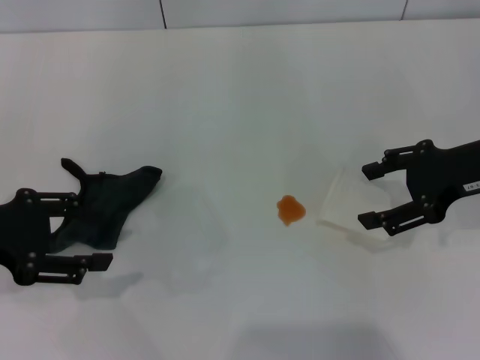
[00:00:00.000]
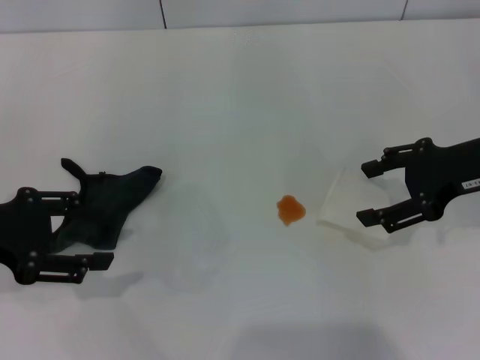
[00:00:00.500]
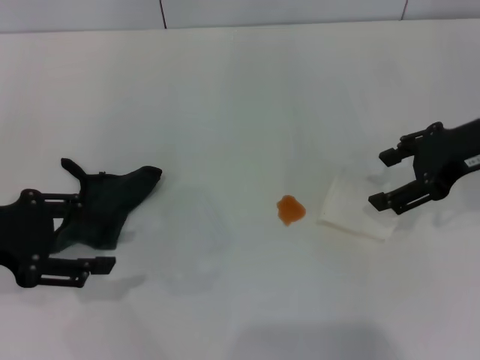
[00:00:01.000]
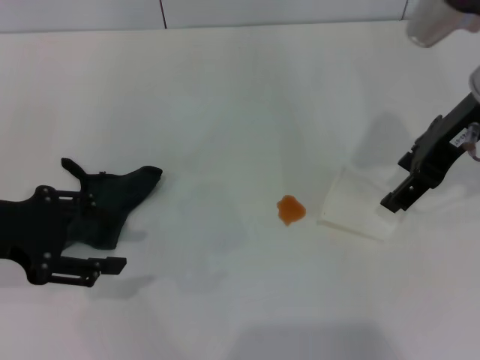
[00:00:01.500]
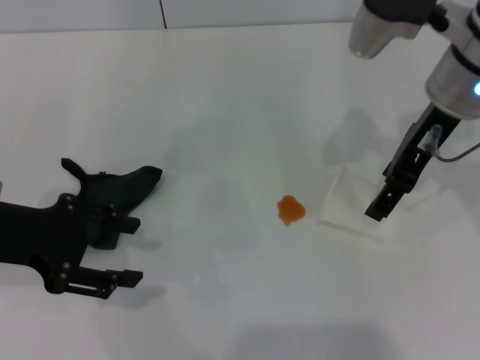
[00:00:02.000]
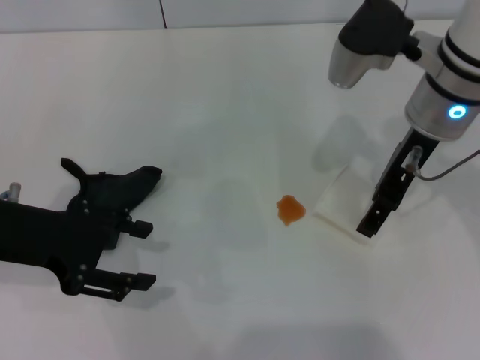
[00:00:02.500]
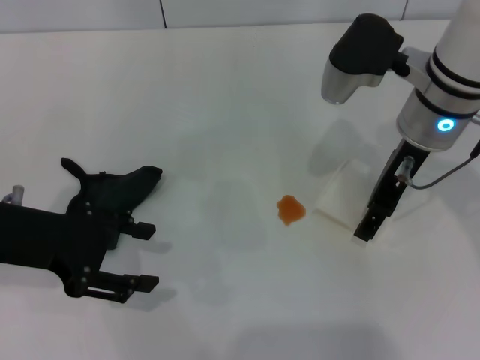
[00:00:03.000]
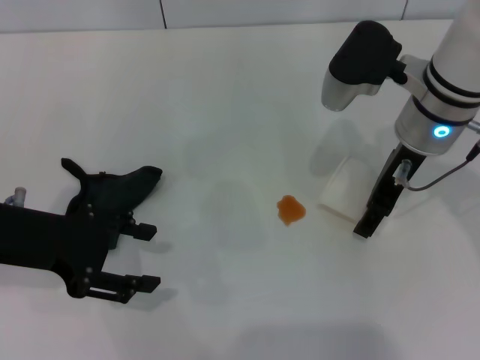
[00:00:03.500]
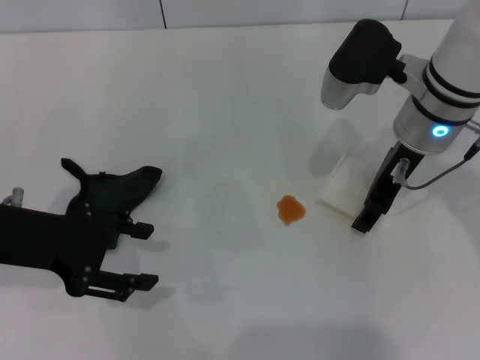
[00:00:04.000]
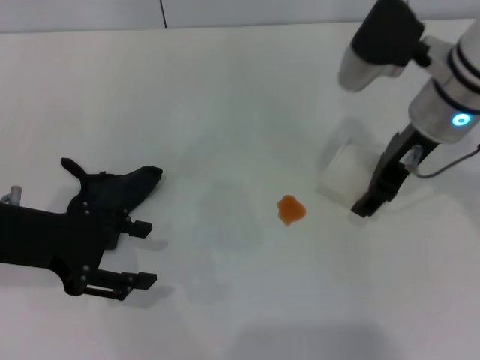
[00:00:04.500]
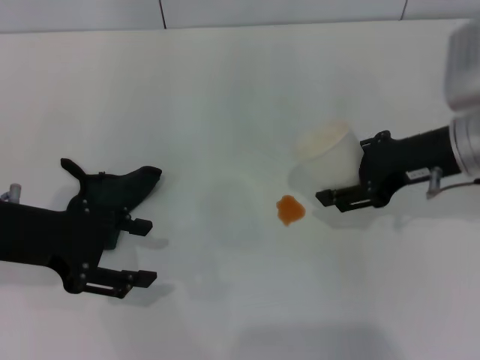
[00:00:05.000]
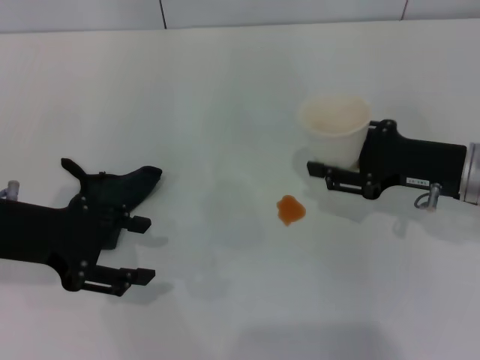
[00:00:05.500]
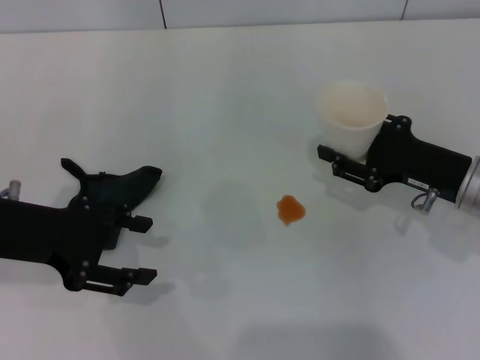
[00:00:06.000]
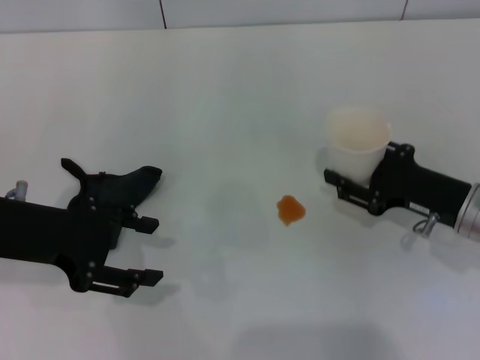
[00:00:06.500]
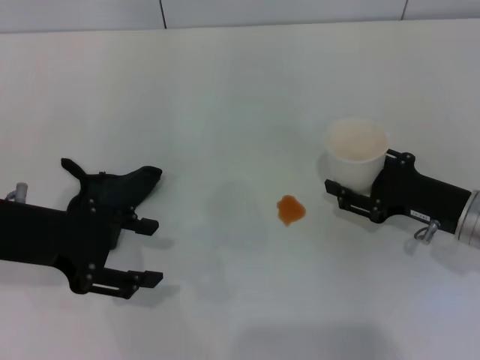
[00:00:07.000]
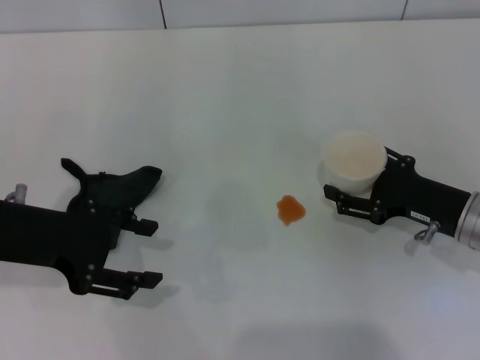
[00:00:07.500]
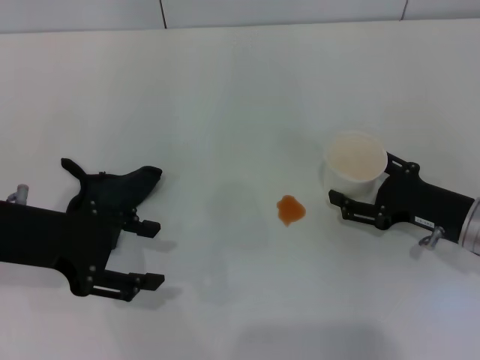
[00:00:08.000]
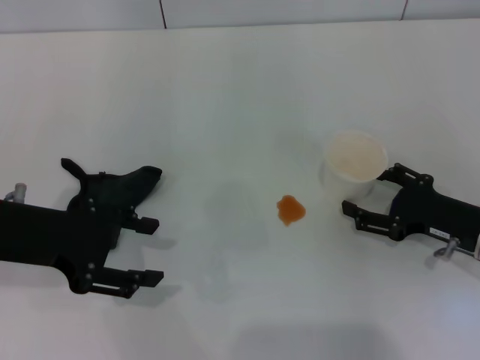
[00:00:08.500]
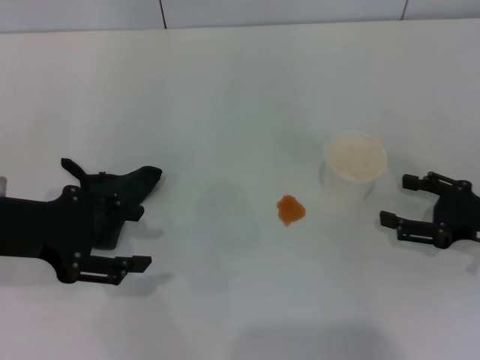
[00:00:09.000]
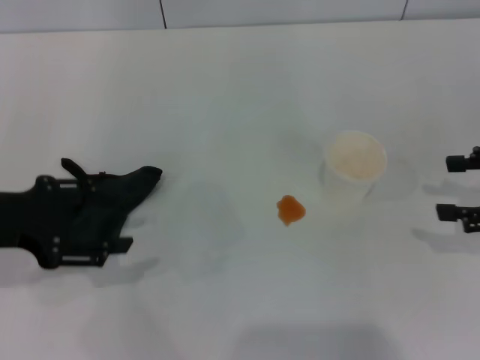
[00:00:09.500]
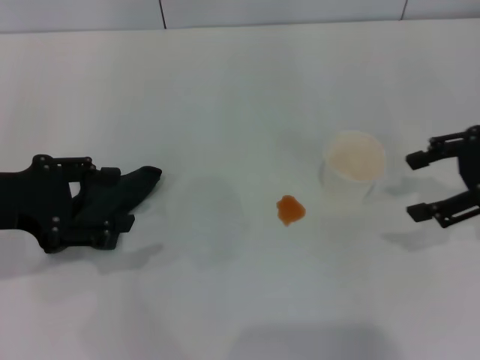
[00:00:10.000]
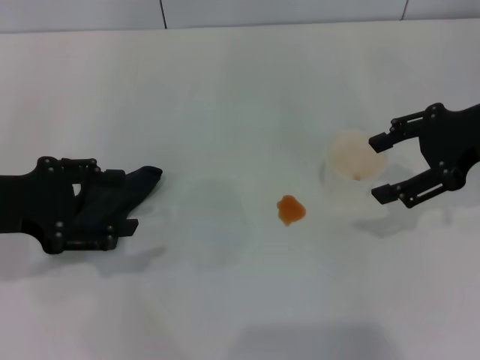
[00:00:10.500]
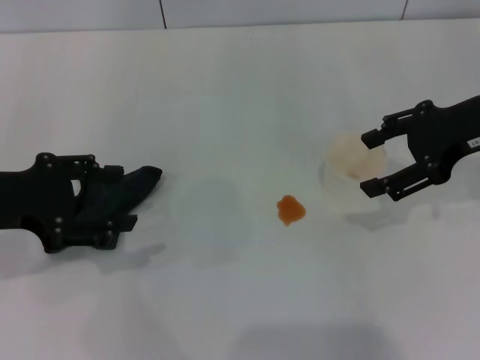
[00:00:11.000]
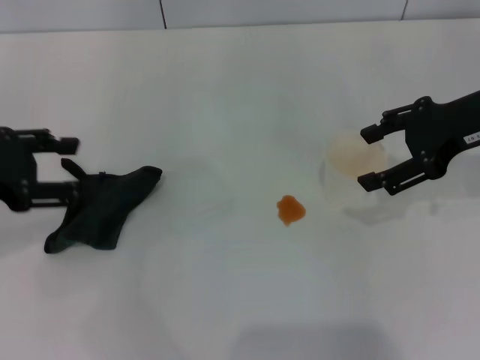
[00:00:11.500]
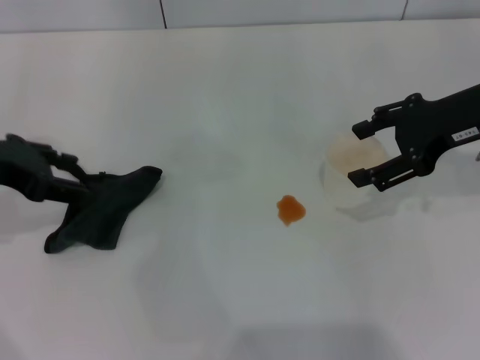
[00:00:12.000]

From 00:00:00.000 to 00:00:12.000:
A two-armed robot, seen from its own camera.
Step, from 00:00:00.000 to 00:00:04.000: Grasp the paper cup with the right gripper.
Step, from 00:00:04.500 to 00:00:08.500: Stand the paper cup upright with the right gripper.
From 00:00:00.000 to 00:00:02.000: The right gripper shifts some 15 cm to the left, upward and forward.
From 00:00:02.000 to 00:00:04.000: The right gripper moves downward, roughly 5 cm, and closes its fingers.
From 00:00:04.000 to 00:00:06.000: The right gripper heads to the right, downward and backward, covering approximately 15 cm, and closes.
From 00:00:06.000 to 00:00:08.000: The right gripper opens its fingers.
From 00:00:08.000 to 00:00:10.000: The right gripper shifts approximately 15 cm upward.
From 00:00:10.000 to 00:00:12.000: The right gripper shifts about 5 cm to the left. The left gripper ends up some 5 cm from where it was.

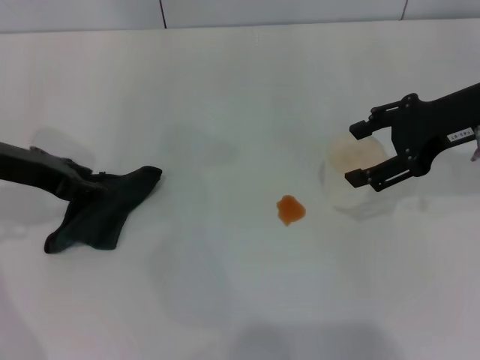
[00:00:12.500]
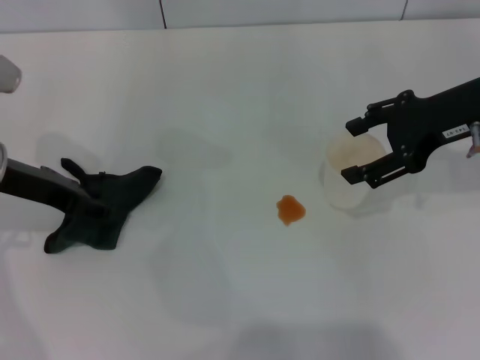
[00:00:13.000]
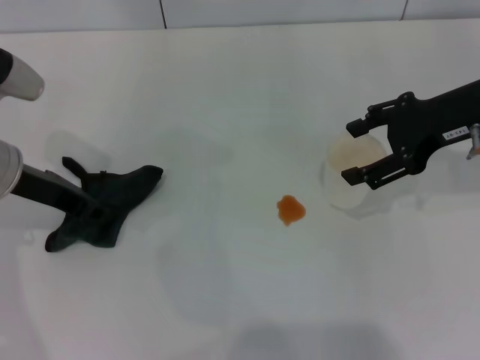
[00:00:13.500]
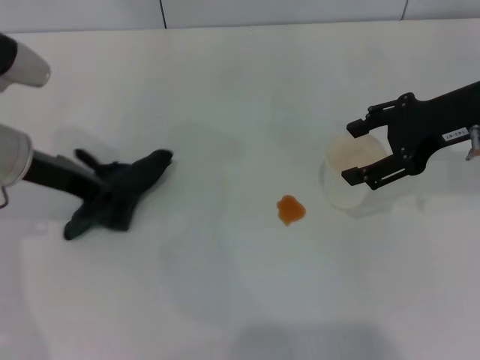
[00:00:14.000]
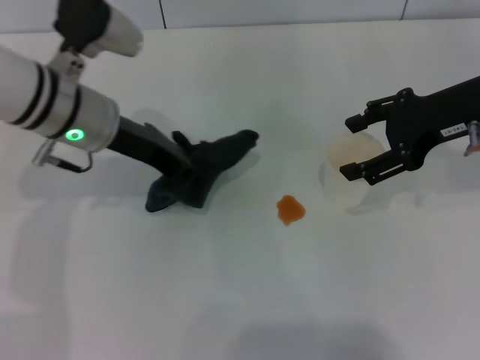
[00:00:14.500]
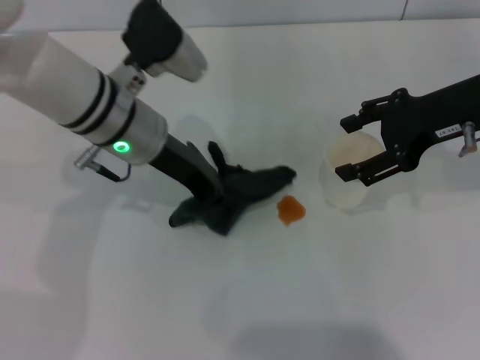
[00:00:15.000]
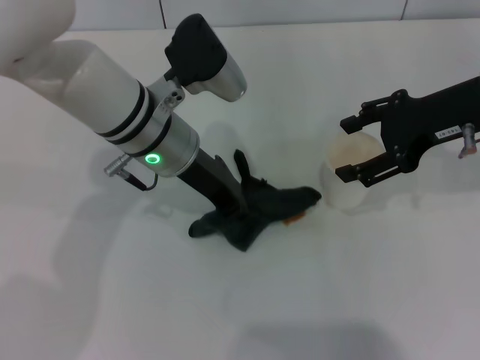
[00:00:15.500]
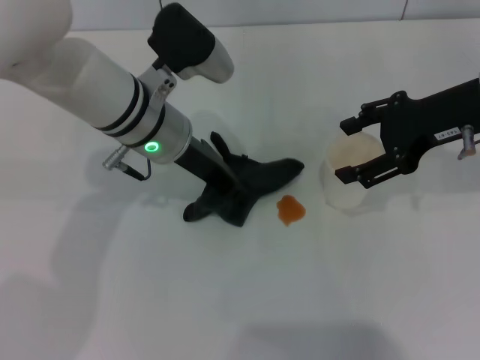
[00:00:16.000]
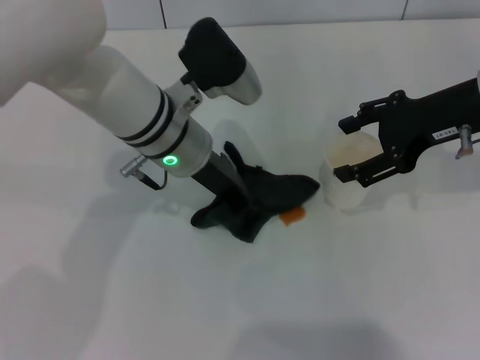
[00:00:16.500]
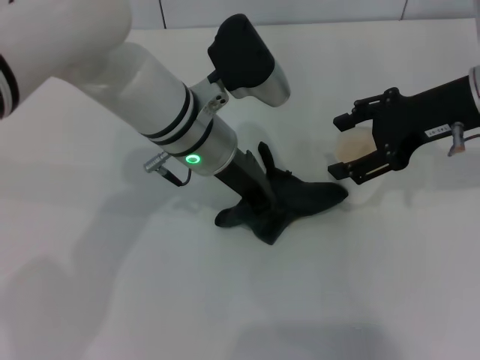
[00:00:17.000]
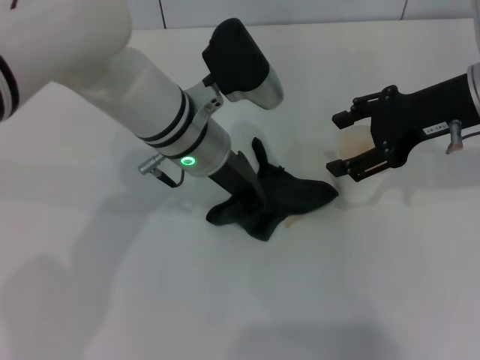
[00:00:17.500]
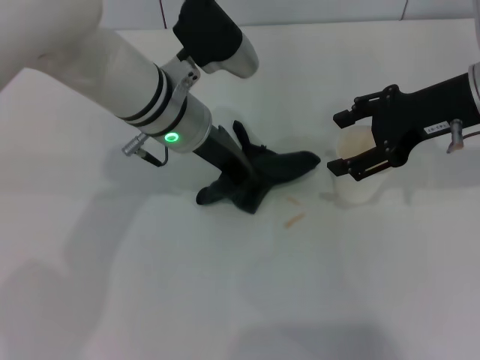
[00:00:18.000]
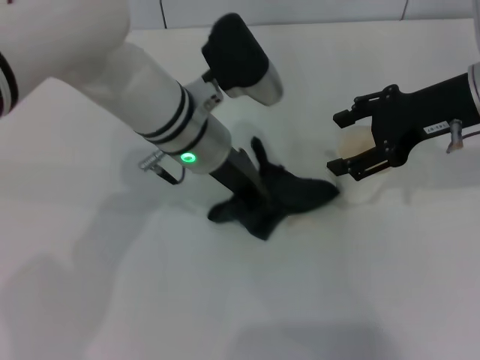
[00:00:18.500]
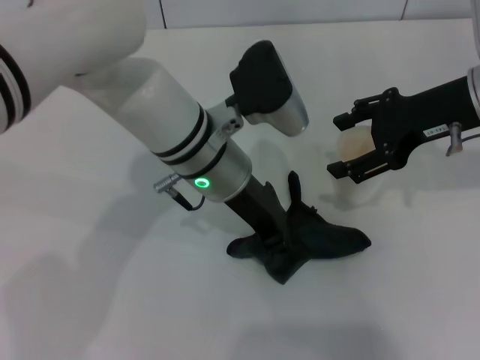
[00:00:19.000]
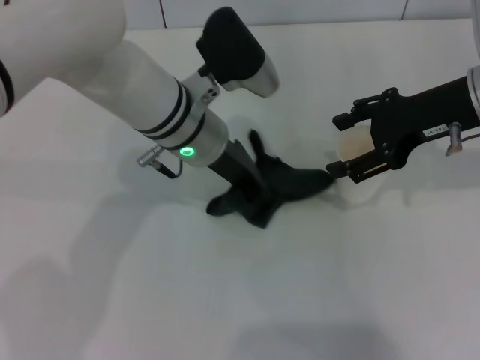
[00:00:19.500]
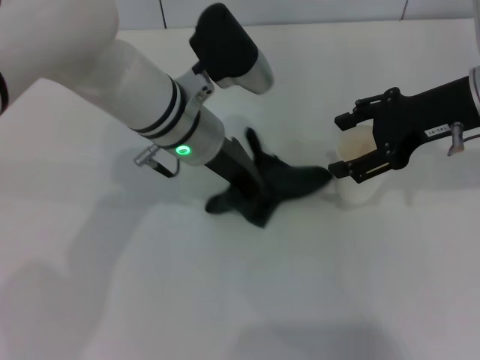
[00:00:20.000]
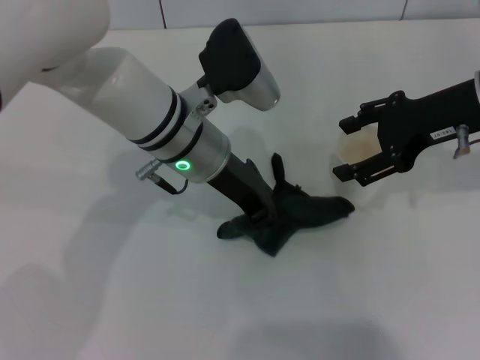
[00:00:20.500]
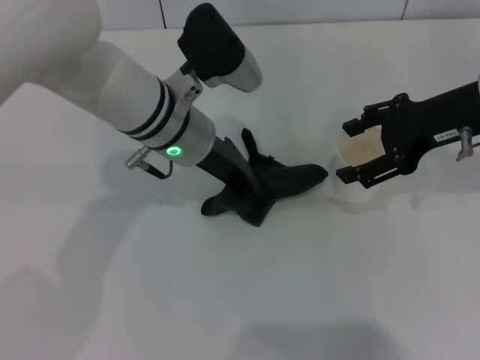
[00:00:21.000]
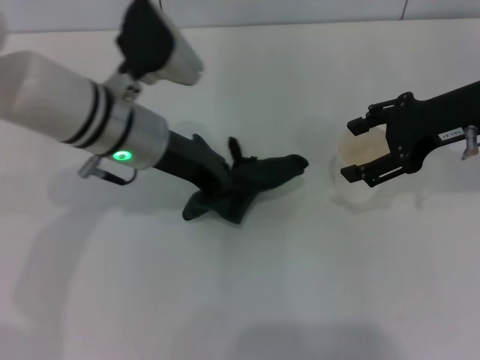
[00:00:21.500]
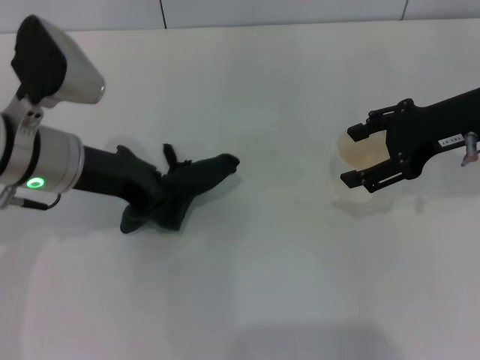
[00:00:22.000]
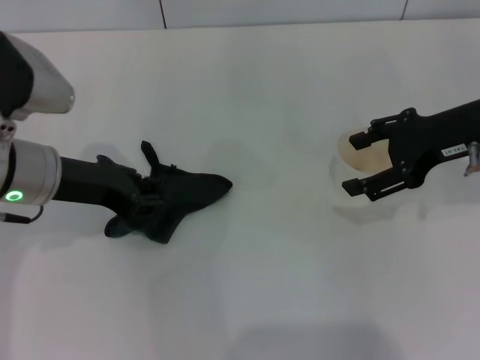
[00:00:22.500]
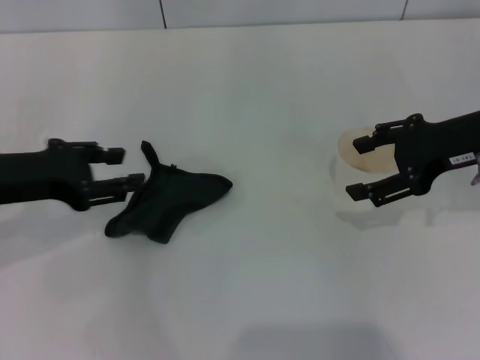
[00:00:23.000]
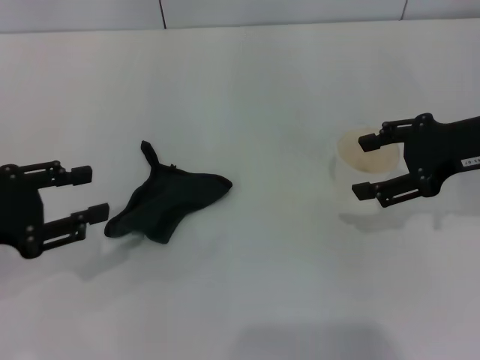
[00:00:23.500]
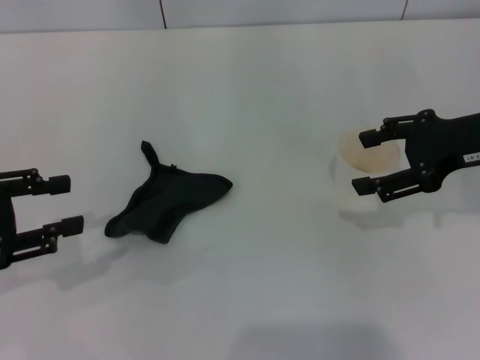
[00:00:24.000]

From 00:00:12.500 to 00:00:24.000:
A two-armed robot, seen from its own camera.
Step, from 00:00:14.000 to 00:00:21.000: Wipe the stains off the table with the left gripper.
Step, from 00:00:21.500 to 00:00:22.500: Place the rag on the table with the left gripper.
From 00:00:12.500 to 00:00:14.500: The left gripper shifts about 10 cm to the right, and closes up.
From 00:00:14.500 to 00:00:16.500: The left gripper goes about 10 cm to the right.
From 00:00:16.500 to 00:00:20.000: There are only small adjustments of the grippers.
From 00:00:20.000 to 00:00:22.000: The left gripper shifts about 15 cm to the left.
From 00:00:22.000 to 00:00:24.000: The left gripper is displaced to the left and backward by roughly 15 cm, and opens.
